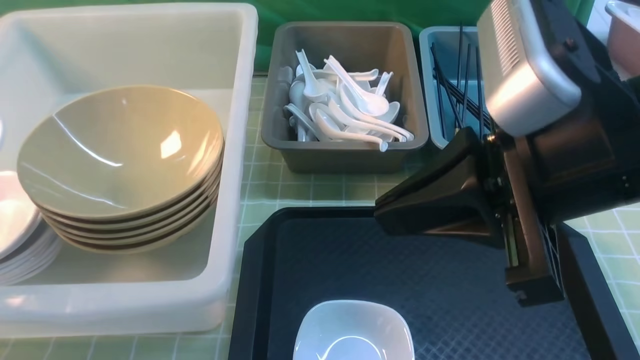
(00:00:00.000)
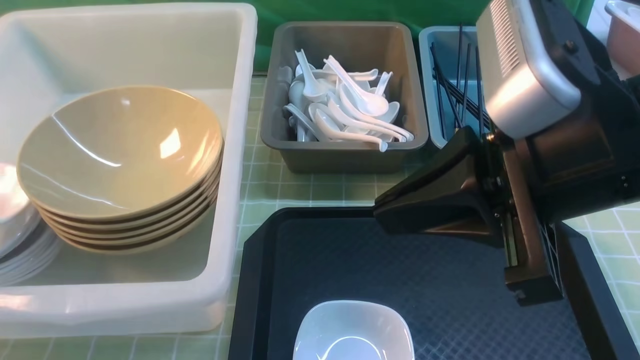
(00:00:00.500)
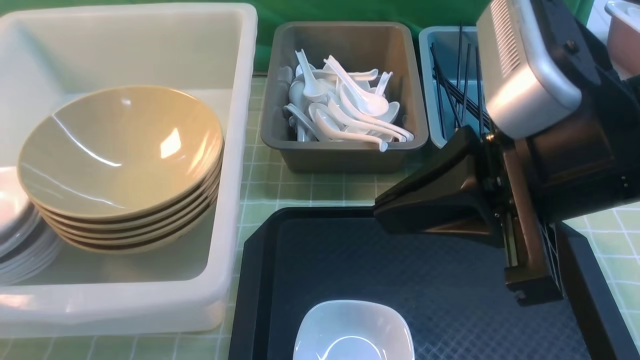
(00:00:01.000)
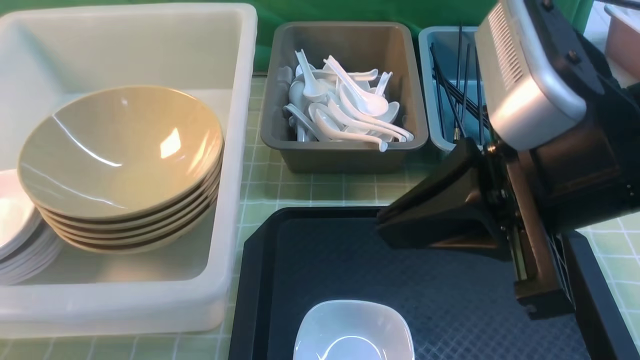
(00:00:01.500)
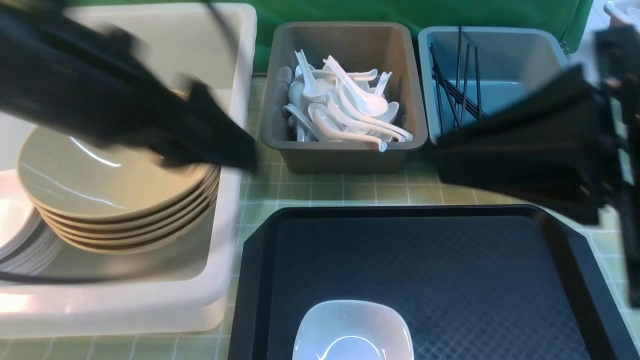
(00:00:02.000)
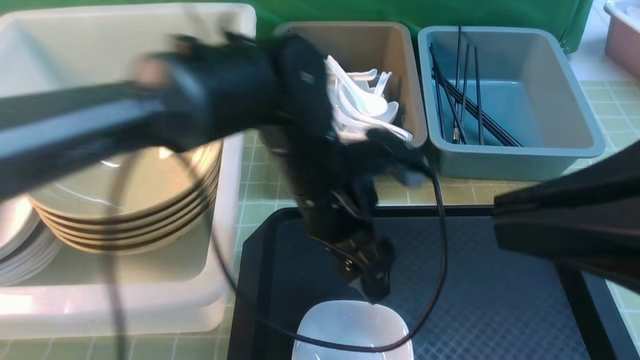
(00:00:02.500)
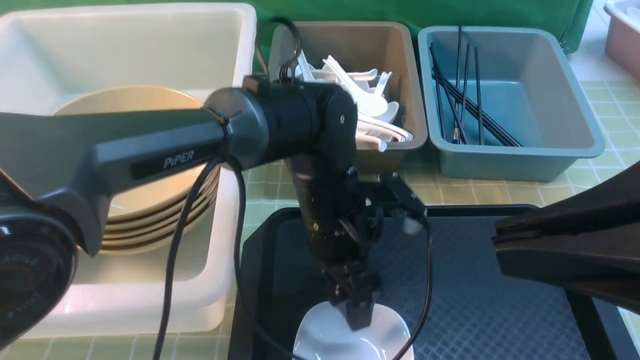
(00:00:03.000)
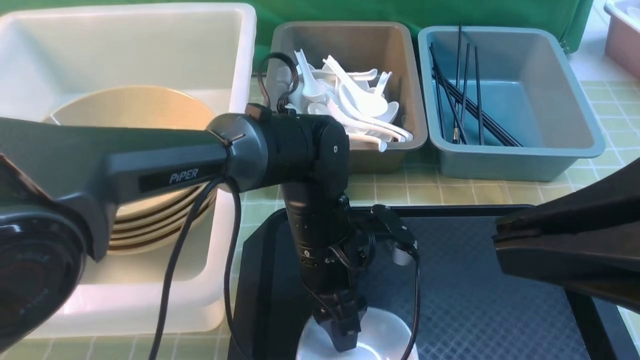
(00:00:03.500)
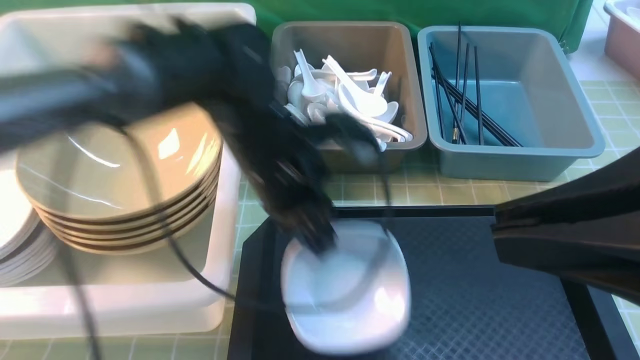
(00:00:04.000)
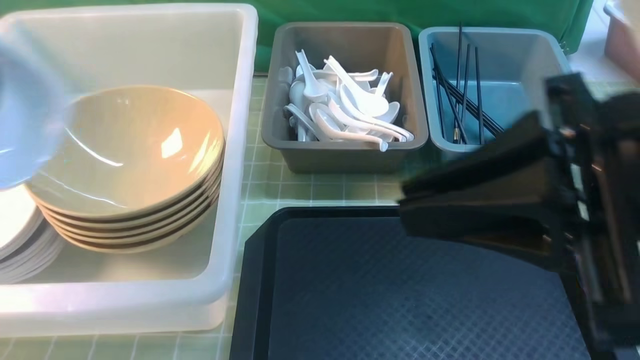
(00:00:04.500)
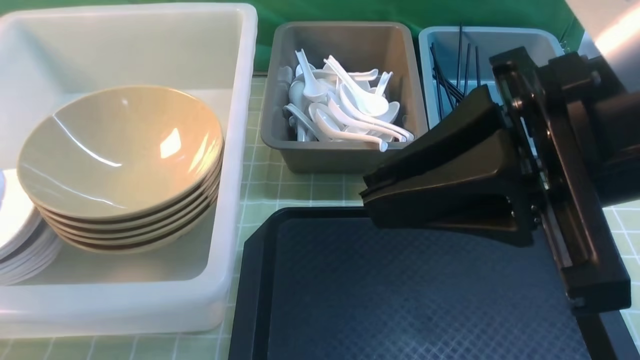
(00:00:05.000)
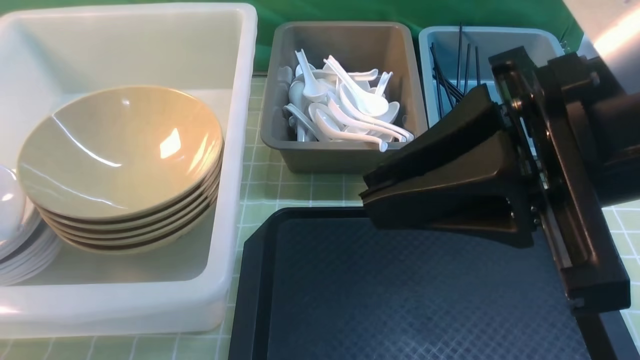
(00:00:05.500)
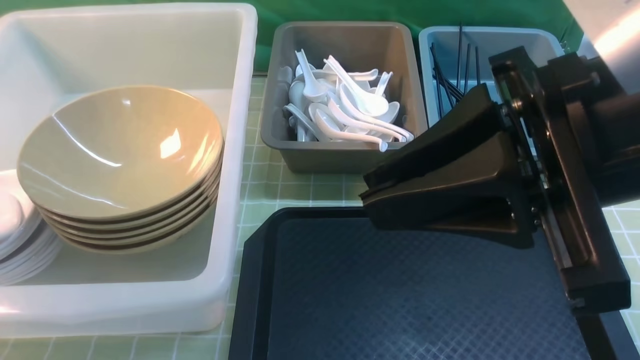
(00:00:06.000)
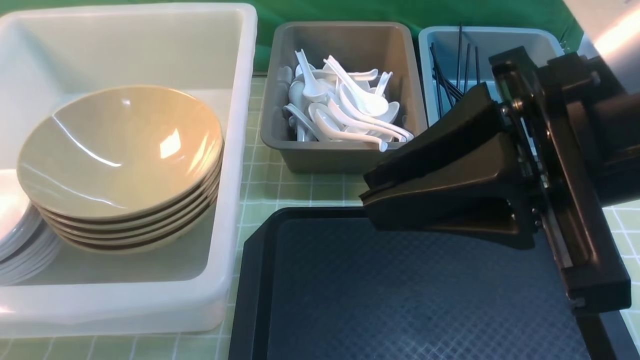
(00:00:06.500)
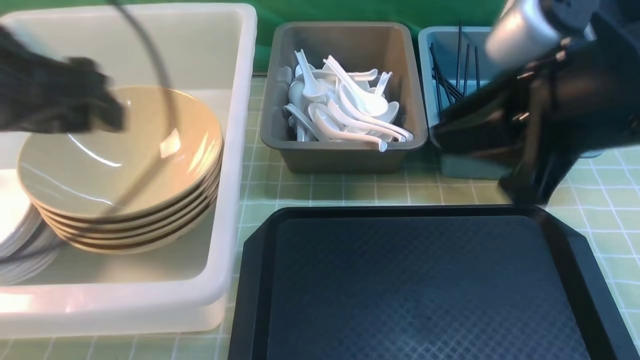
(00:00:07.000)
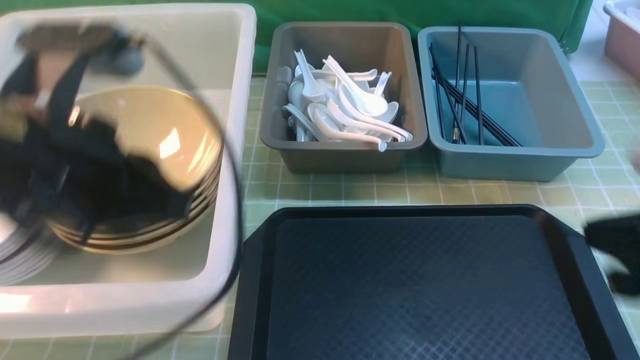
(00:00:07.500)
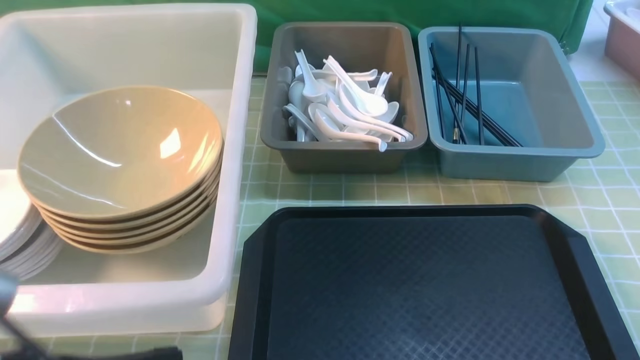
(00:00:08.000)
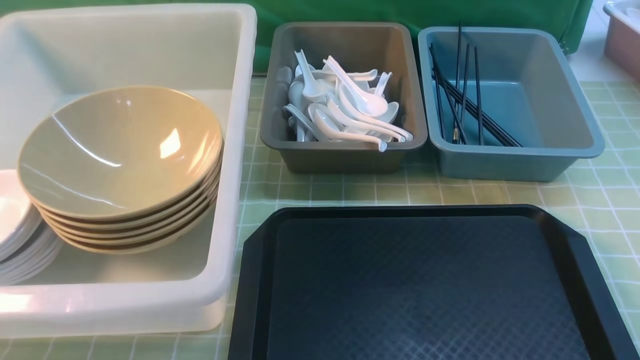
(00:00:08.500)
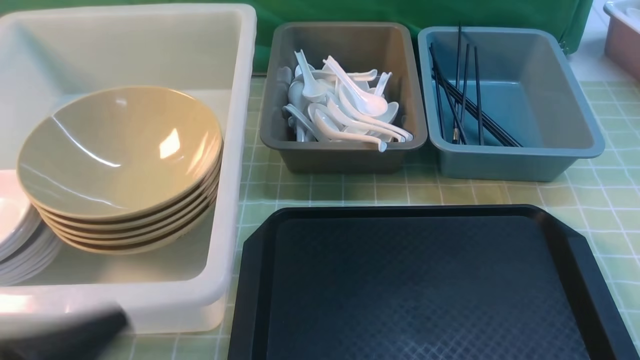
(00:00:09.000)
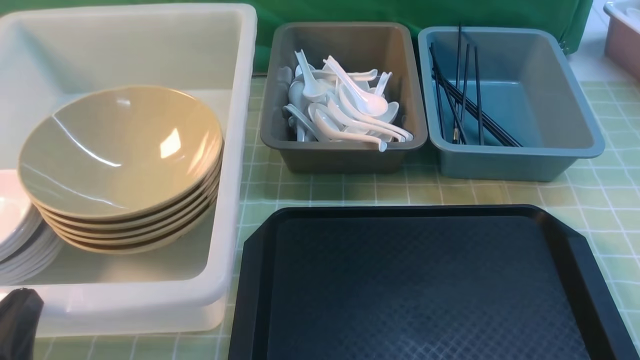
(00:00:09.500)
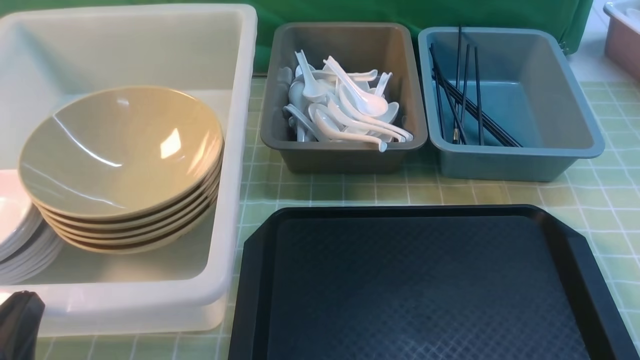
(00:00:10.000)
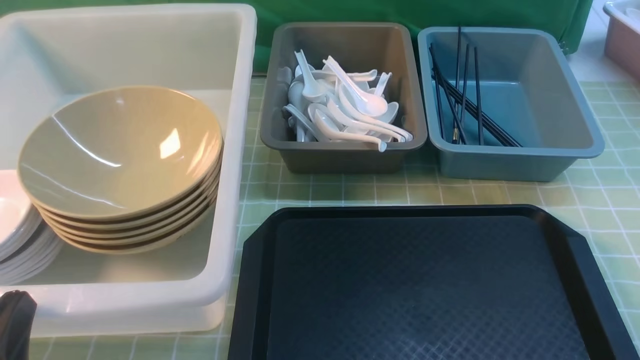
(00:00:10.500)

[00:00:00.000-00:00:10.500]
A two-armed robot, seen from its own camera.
Task of the whole recording: on green table put chopsticks spoon bowls plates into blue grey white boxes.
Step, 00:00:02.000 to 00:00:03.500: use the left arm to grab the plate.
Step, 00:00:04.500 to 00:00:06.500: use the left arm to put the plate into the large storage box on the left.
00:00:00.000 to 00:00:02.000: The left gripper heads to the right, covering about 25 cm, and opens up. The right gripper moves approximately 5 cm.
00:00:02.000 to 00:00:04.000: The left gripper shifts about 15 cm downward, forward and to the right, and closes.
00:00:04.000 to 00:00:06.500: The right gripper heads forward, covering roughly 5 cm; the left gripper is displaced to the left by about 30 cm, and opens up.
00:00:06.500 to 00:00:08.500: The right gripper is displaced downward, to the right and backward by some 25 cm, while the left gripper travels backward and to the right by about 30 cm, and closes up.
00:00:08.500 to 00:00:10.500: The left gripper goes roughly 10 cm downward and to the left.

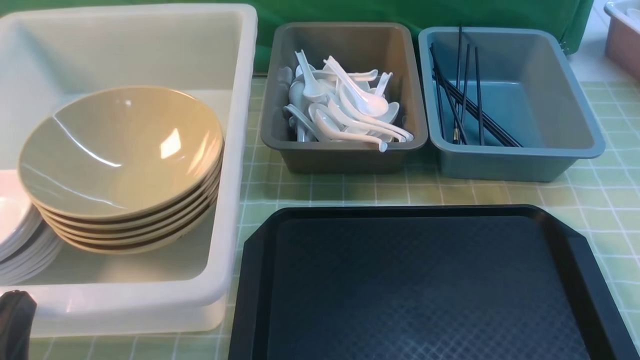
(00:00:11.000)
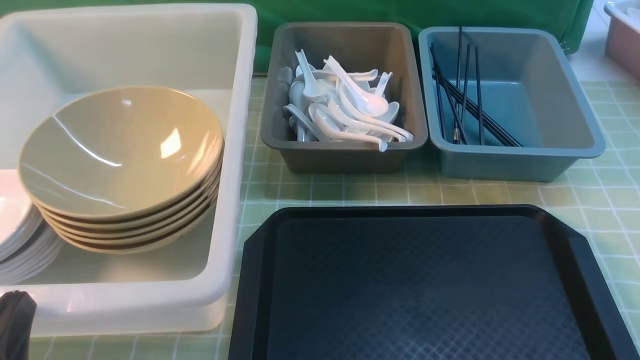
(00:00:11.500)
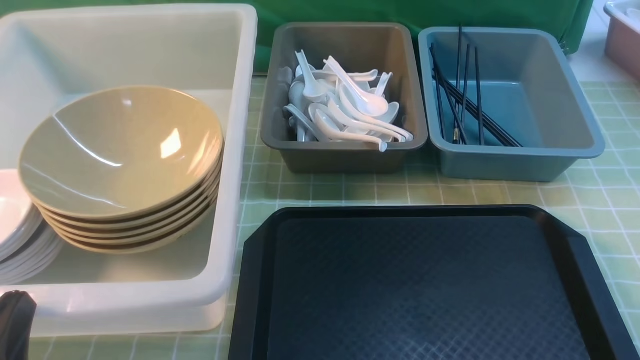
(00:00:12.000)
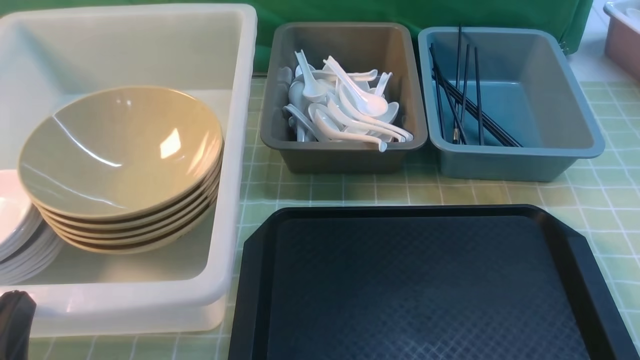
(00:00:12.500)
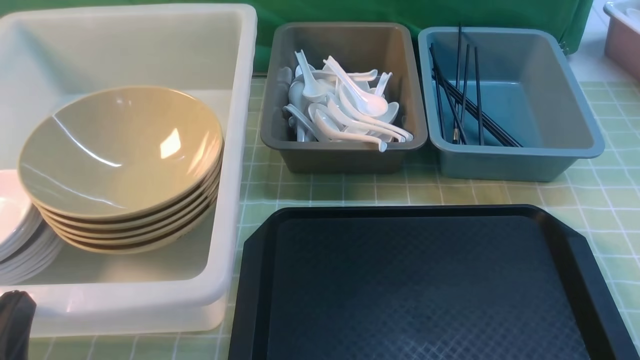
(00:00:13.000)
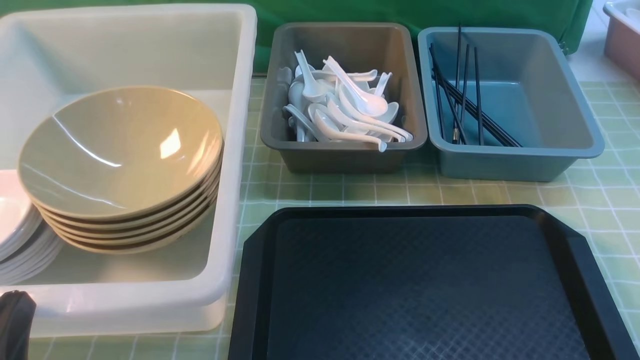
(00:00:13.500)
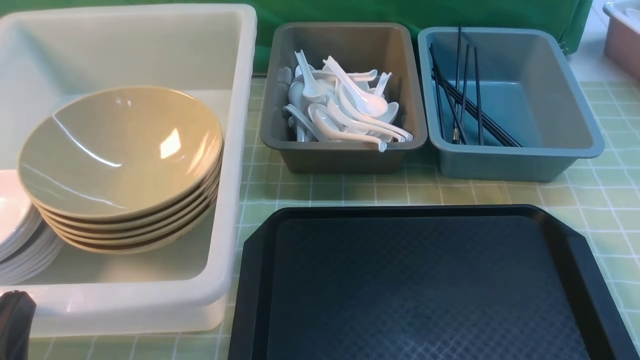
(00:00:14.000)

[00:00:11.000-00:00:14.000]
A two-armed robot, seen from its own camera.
Task of the whole recording: on green table put chopsticks spoon bowls plates into blue grey white boxes.
00:00:12.500 to 00:00:14.000: The two grippers keep their place.

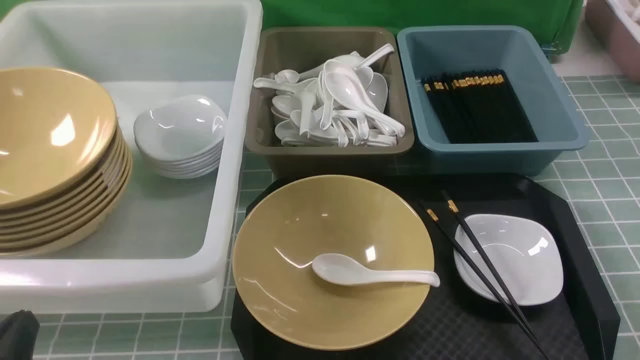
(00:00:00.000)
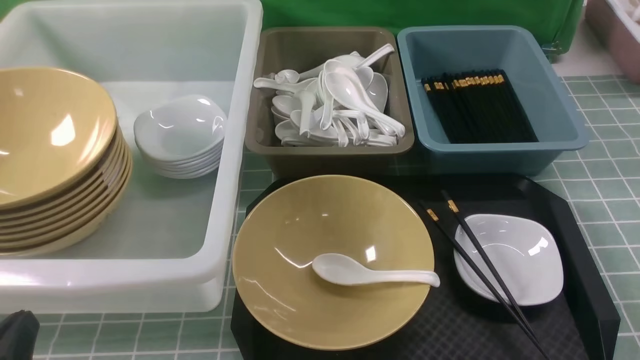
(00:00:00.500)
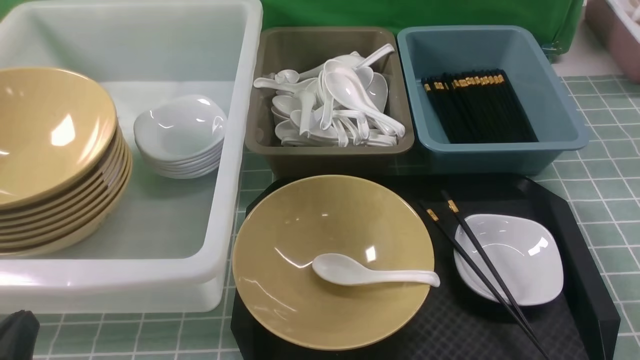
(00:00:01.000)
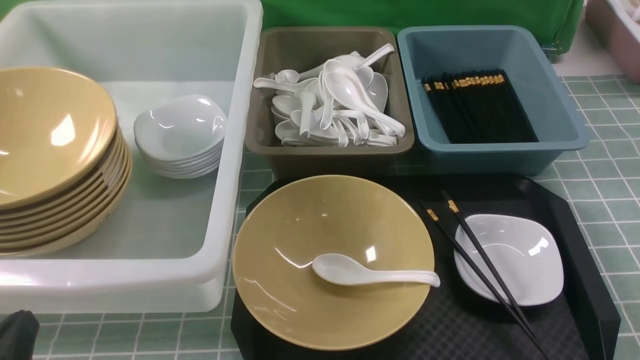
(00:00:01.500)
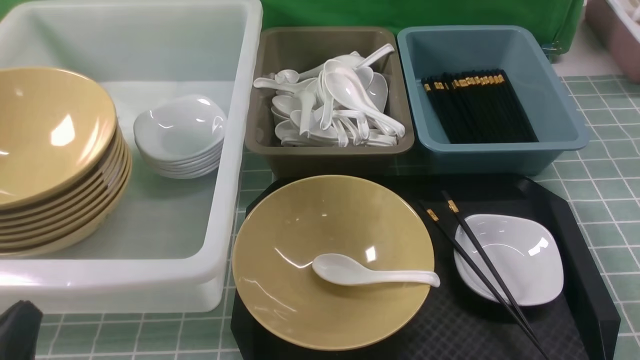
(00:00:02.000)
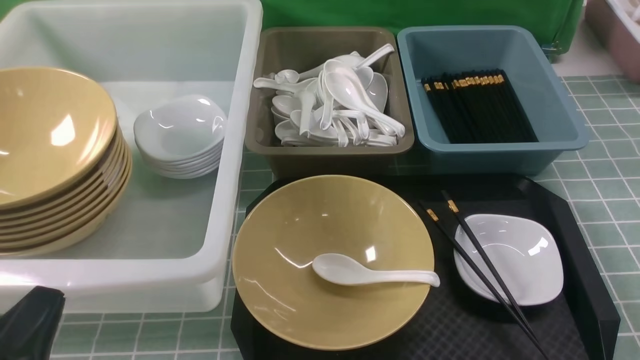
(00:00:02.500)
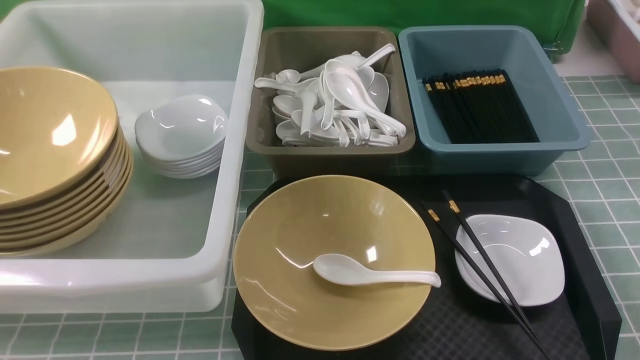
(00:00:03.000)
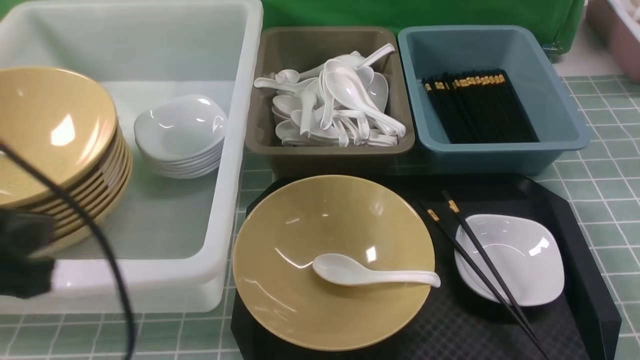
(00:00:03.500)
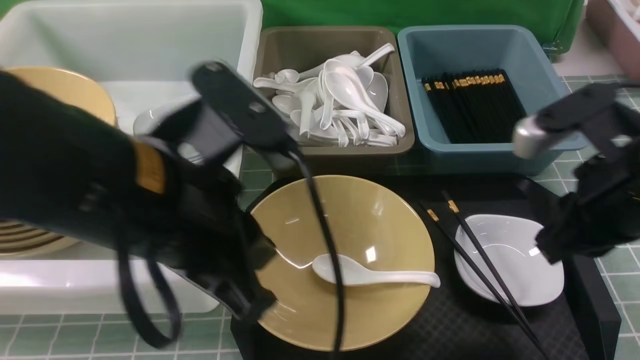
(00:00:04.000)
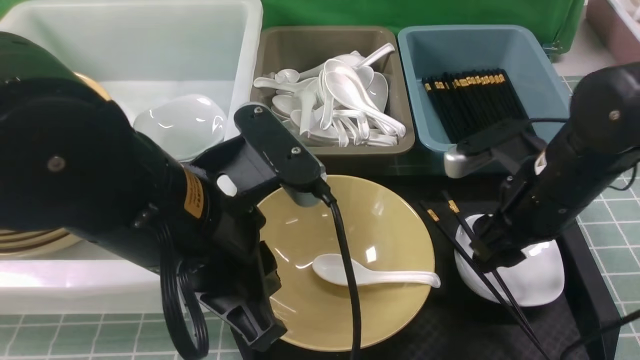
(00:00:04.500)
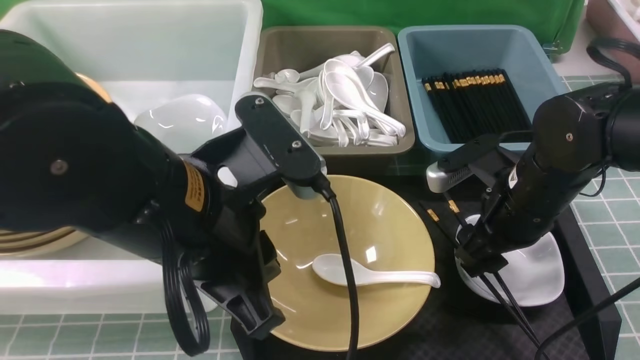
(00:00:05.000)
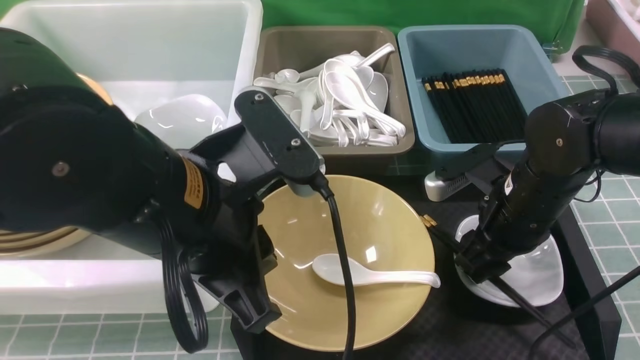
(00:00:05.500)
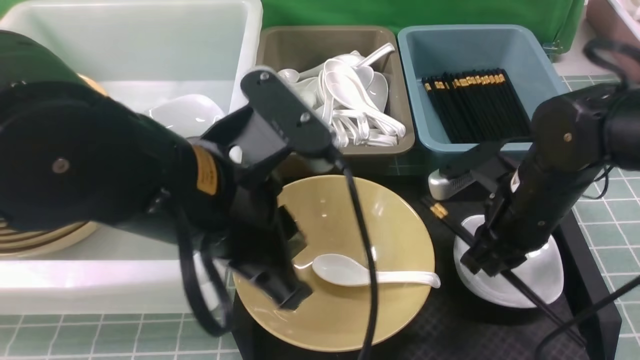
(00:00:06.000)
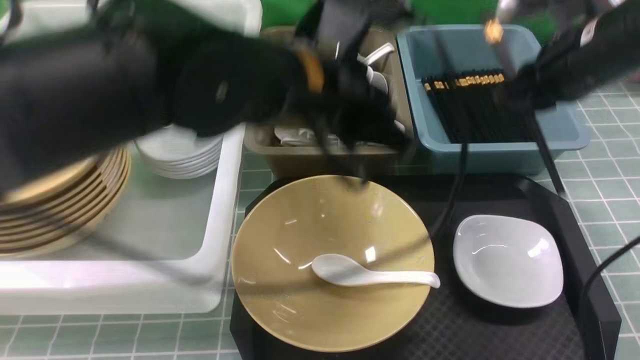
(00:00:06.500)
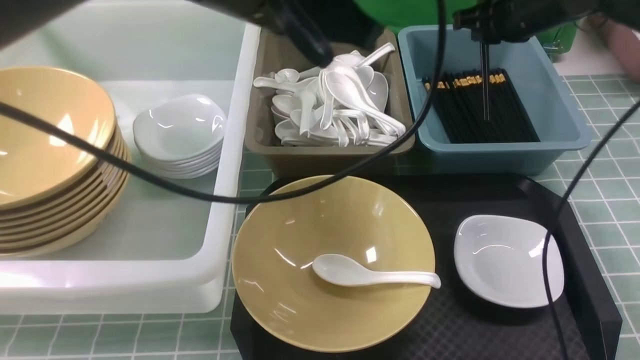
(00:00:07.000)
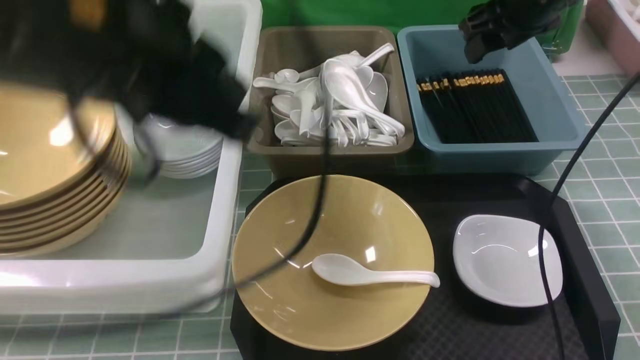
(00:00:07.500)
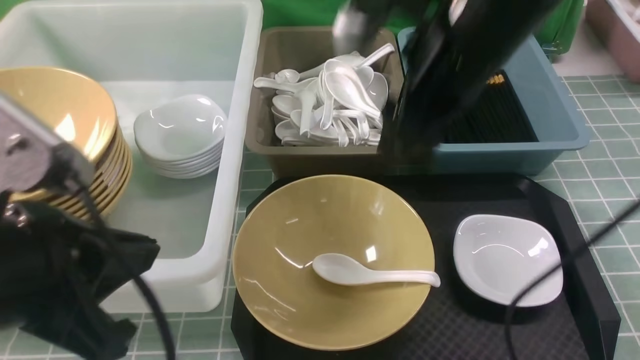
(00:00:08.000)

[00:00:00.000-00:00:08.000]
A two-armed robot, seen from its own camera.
Task of the whole recording: on blue table put chopsticks spoon bowls plates into blue grey white boxes.
Step, 00:00:00.000 to 00:00:06.000: use the right arm to grab the chopsticks.
Step, 00:00:06.500 to 00:00:07.000: use the right arm to put the chopsticks into the small storage box on the right.
00:00:02.000 to 00:00:04.000: The left gripper goes roughly 25 cm upward, to the right and forward; the right gripper is displaced forward, upward and to the left by roughly 20 cm.
00:00:04.000 to 00:00:06.000: The right gripper travels downward and forward by some 10 cm, and opens, then closes again.
00:00:06.000 to 00:00:08.000: The right gripper shifts about 15 cm upward and to the left, travels forward and back again, some 20 cm each way, and opens its fingers; the left gripper travels to the left and backward by some 15 cm.
